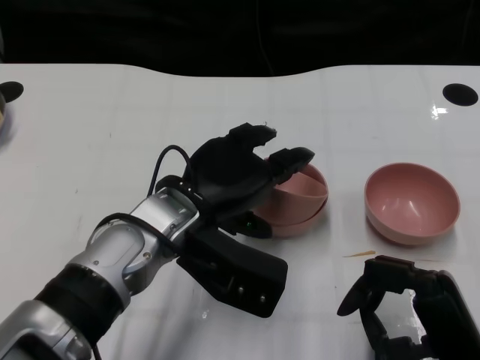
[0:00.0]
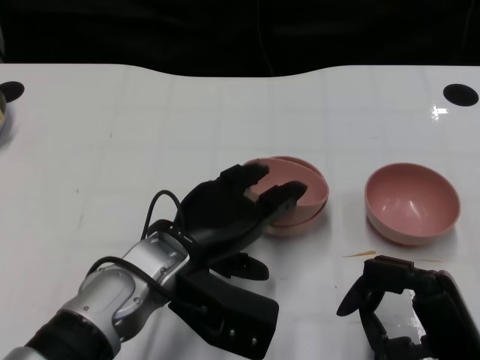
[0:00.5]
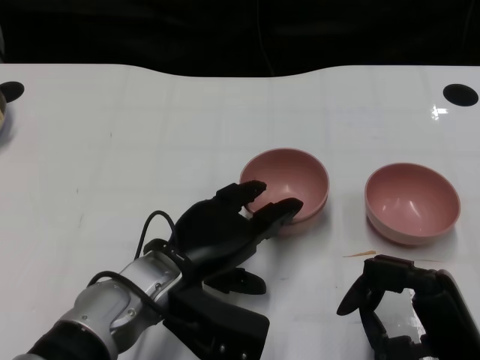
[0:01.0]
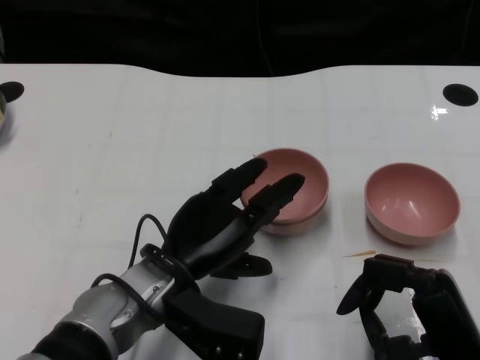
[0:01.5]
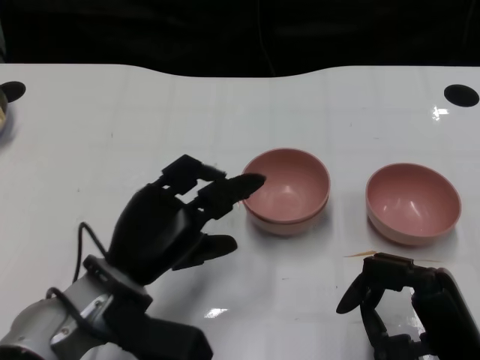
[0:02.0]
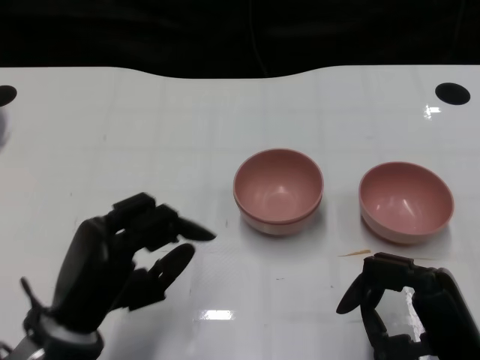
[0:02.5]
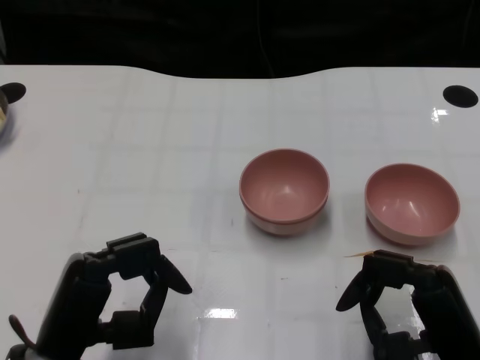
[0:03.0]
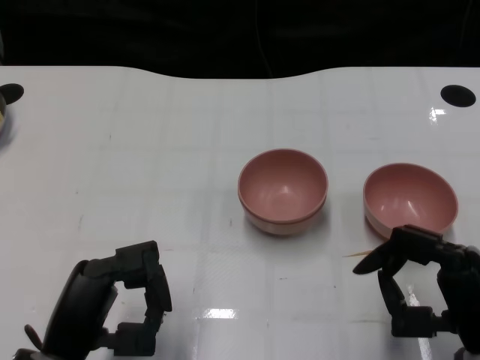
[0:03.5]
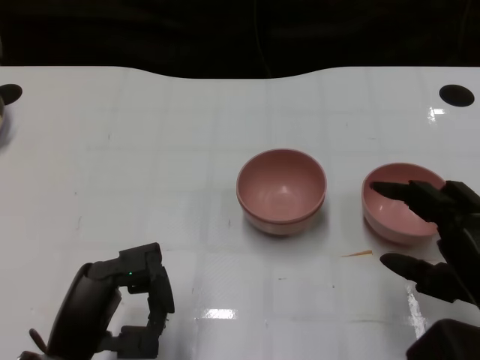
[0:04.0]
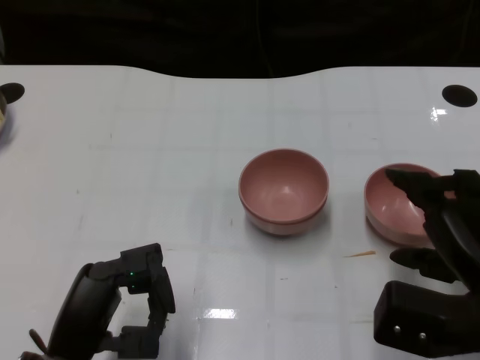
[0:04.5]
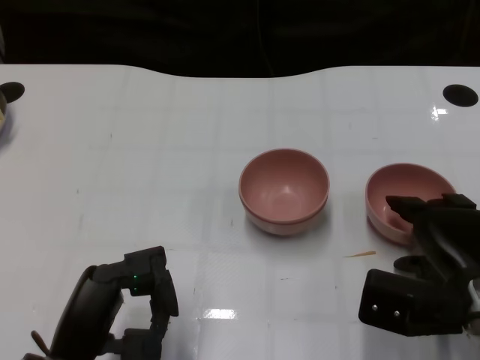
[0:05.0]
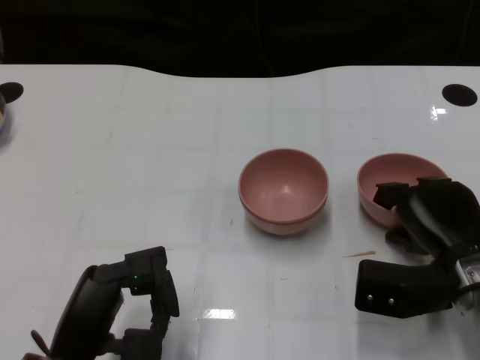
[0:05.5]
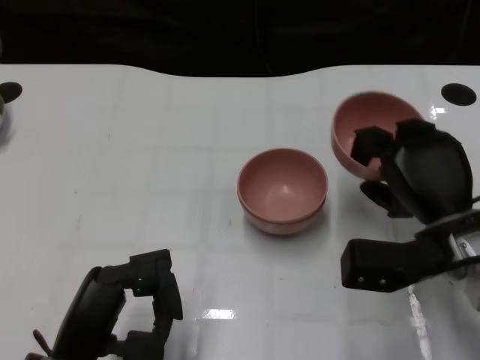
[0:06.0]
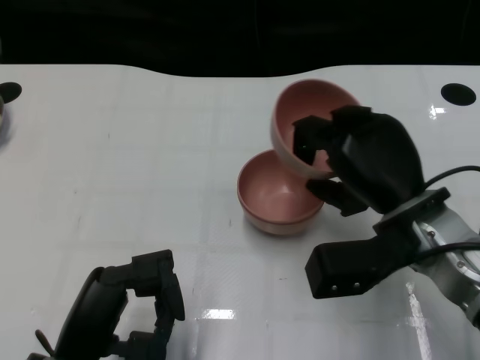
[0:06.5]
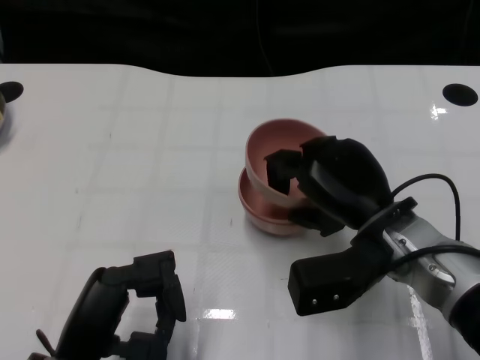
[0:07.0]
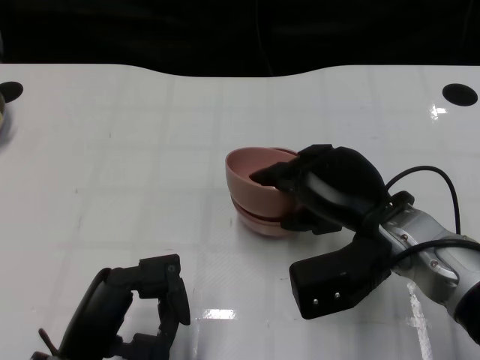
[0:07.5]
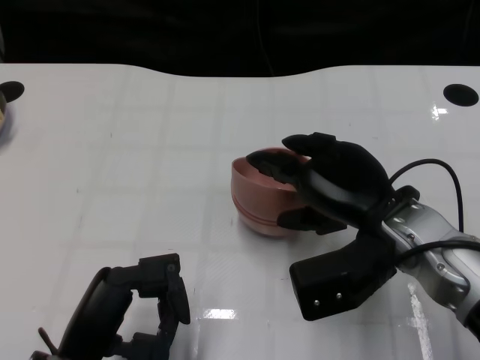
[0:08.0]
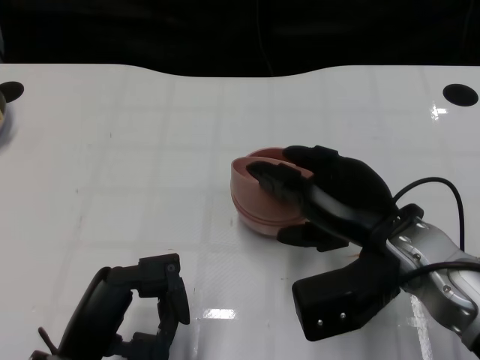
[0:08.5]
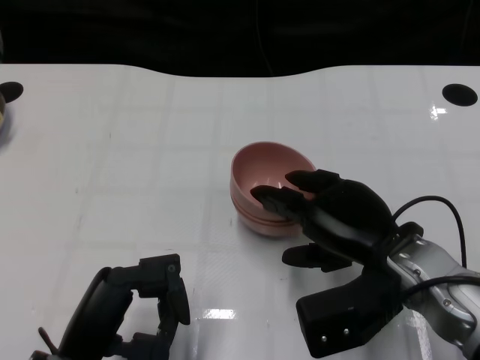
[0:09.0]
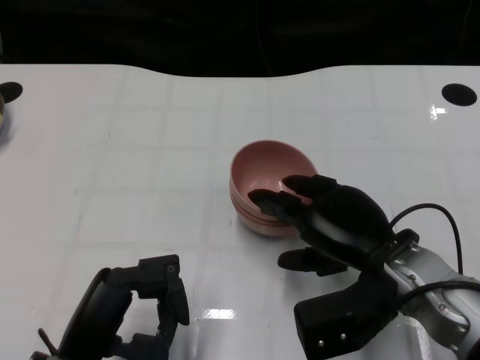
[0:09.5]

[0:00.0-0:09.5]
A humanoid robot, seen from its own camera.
Task of the whole recording: Pick up the bowl on one side of the table and place it on top of the middle bowl, then pick up the bowl on the other side of the table and place it on top of the middle bowls.
Step, 0:02.0 to 0:05.0: Grasp the bowl on the right with the right gripper.
0:00.0 to 0:02.0: The left hand heads to the left and downward, covering some 10 cm.
0:02.0 to 0:04.0: The left hand shifts some 10 cm backward and to the left; the right hand goes approximately 5 cm upward.
0:04.0 to 0:05.5: The right hand travels forward and downward by roughly 10 cm.
0:05.5 to 0:07.5: The right hand heads to the left and upward, covering some 10 cm.
0:07.5 to 0:09.5: The hands make only small movements.

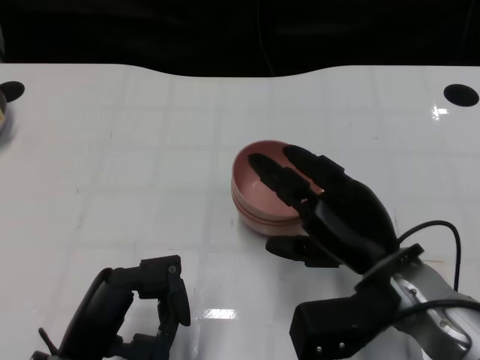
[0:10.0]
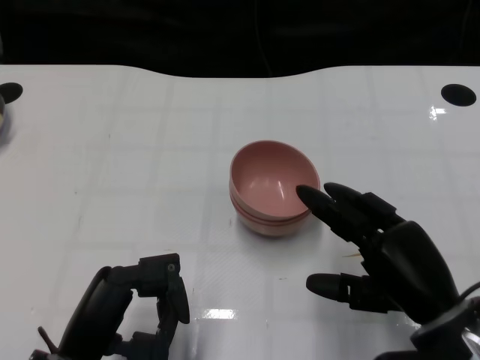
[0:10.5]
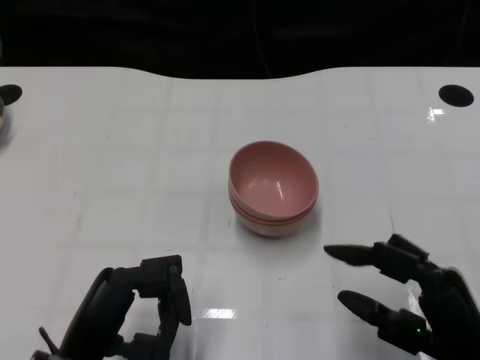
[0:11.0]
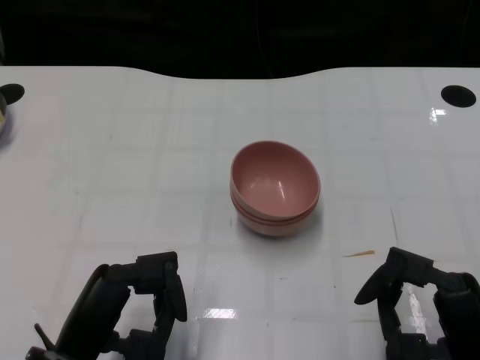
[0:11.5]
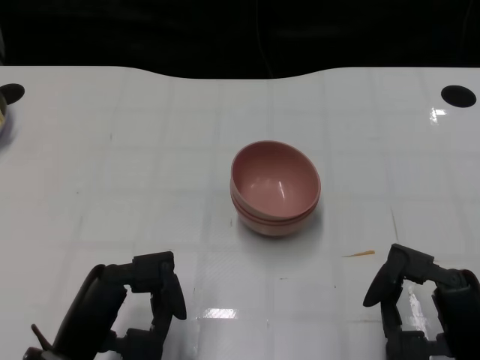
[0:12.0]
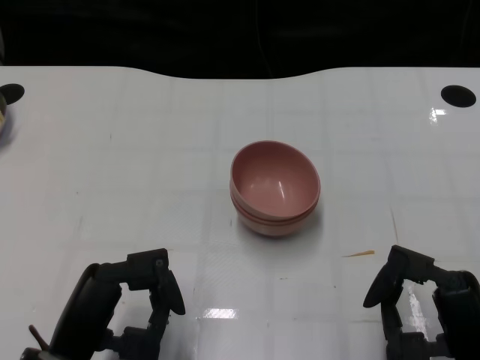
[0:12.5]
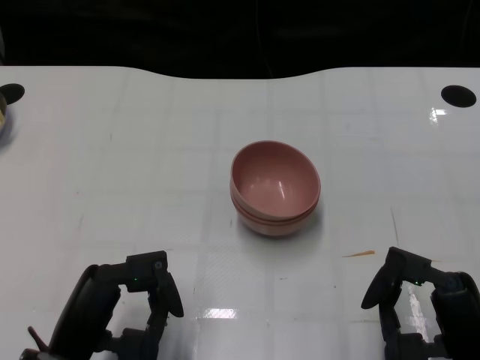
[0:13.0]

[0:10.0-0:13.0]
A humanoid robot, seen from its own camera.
Task of the whole recording: Pick up the bowl on one side of the table and place it on top of the middle bowl, then pick up the bowl on the other side of the table and place it on top of the middle bowls.
0:10.0 to 0:11.5: The right hand heads backward and to the right, covering roughly 10 cm.
0:11.5 to 0:13.0: Neither hand changes place.

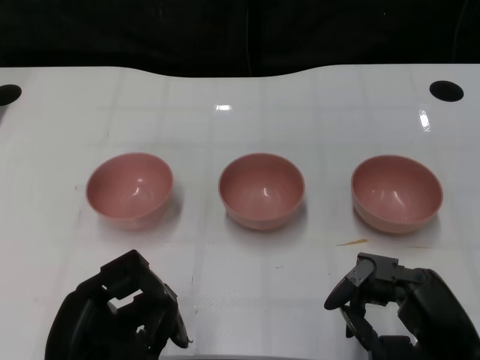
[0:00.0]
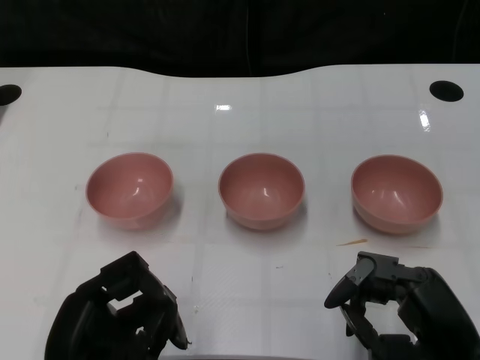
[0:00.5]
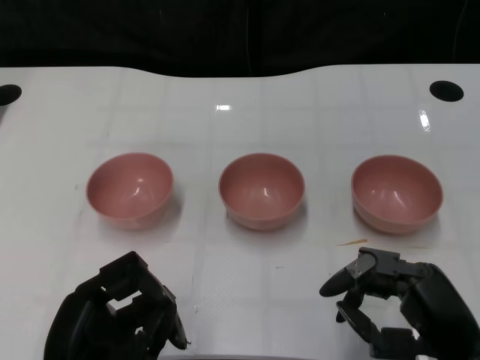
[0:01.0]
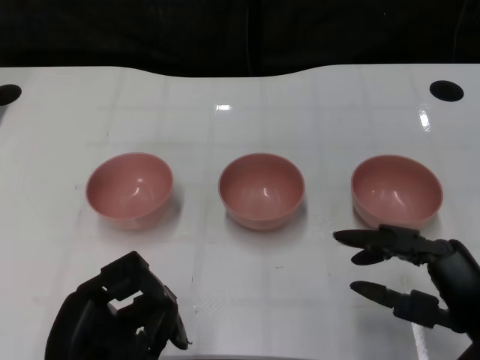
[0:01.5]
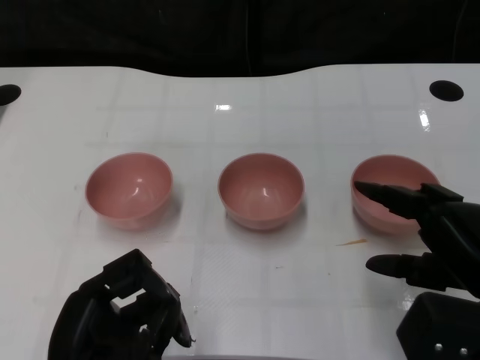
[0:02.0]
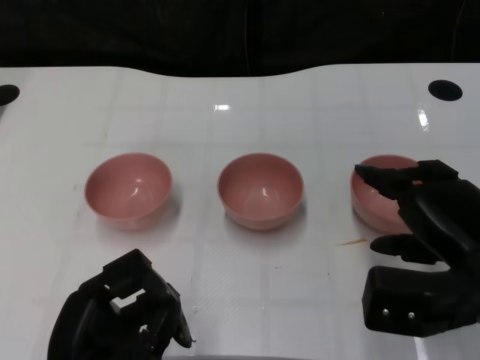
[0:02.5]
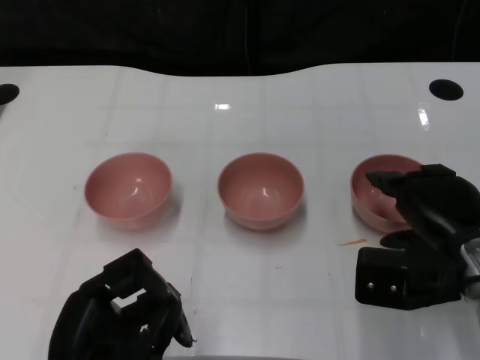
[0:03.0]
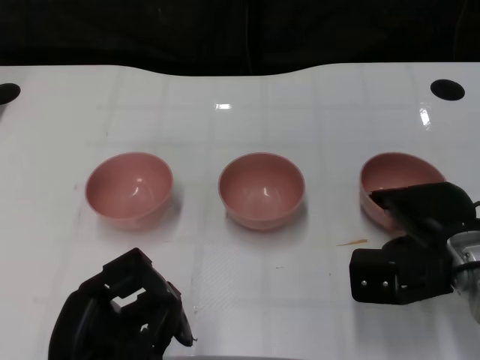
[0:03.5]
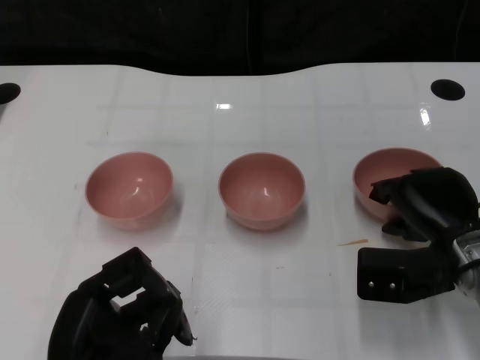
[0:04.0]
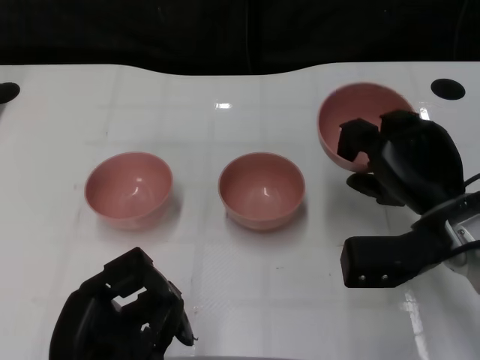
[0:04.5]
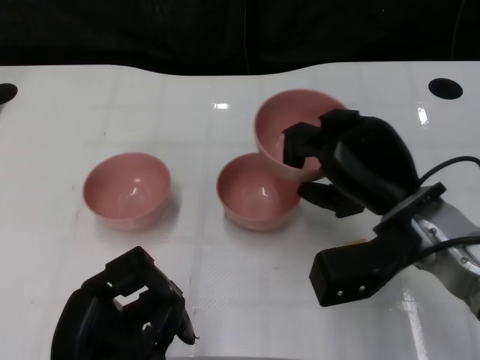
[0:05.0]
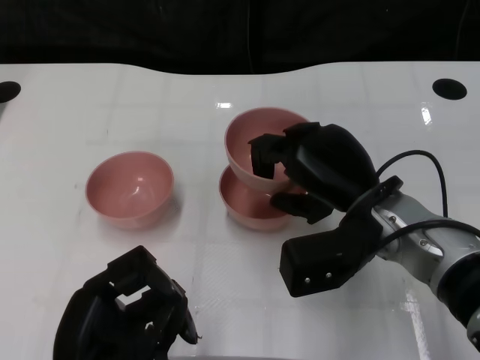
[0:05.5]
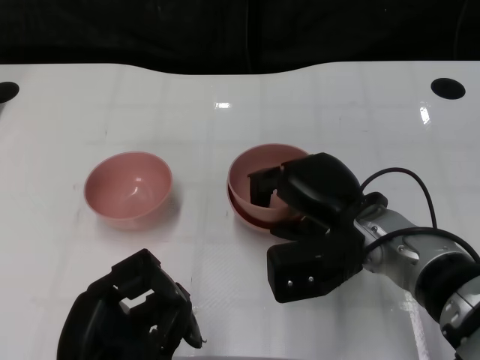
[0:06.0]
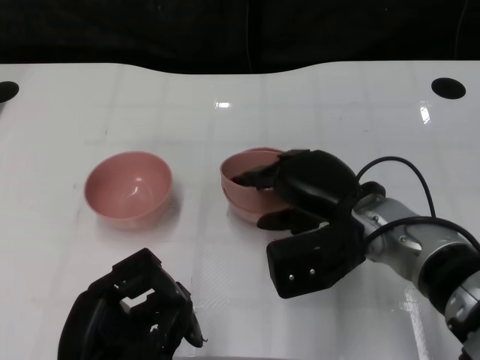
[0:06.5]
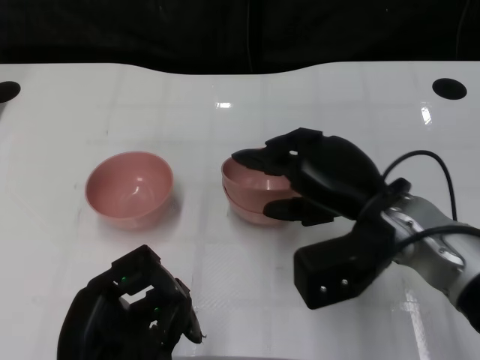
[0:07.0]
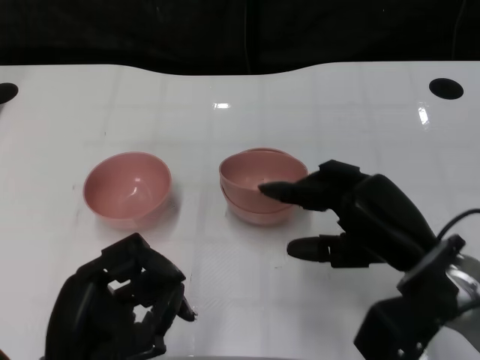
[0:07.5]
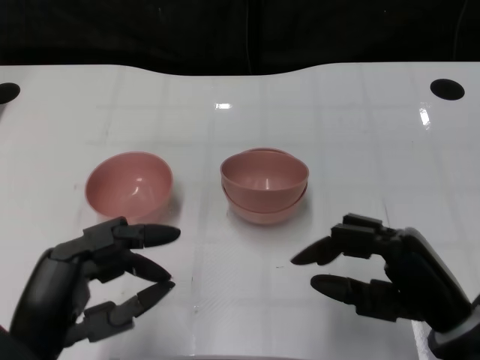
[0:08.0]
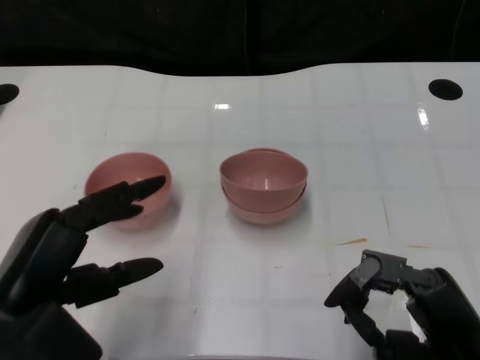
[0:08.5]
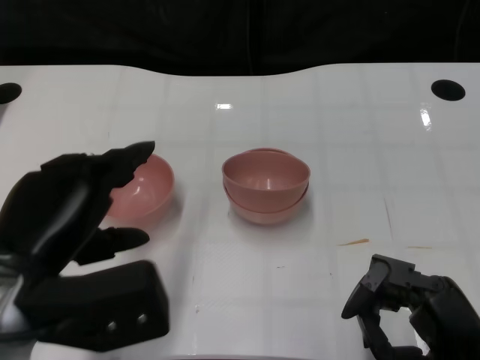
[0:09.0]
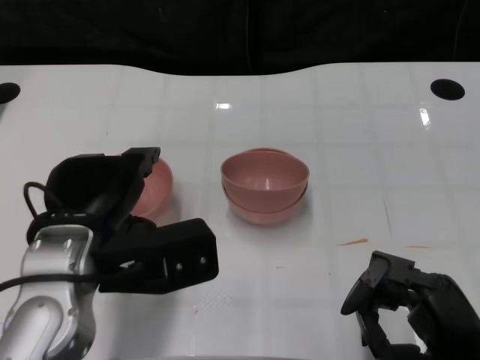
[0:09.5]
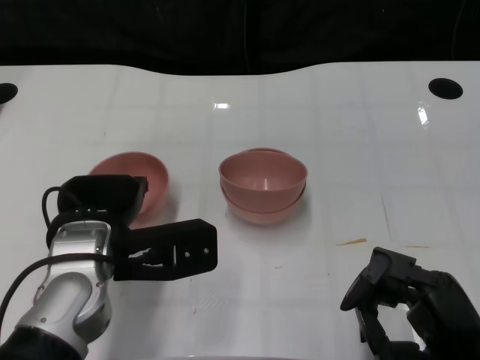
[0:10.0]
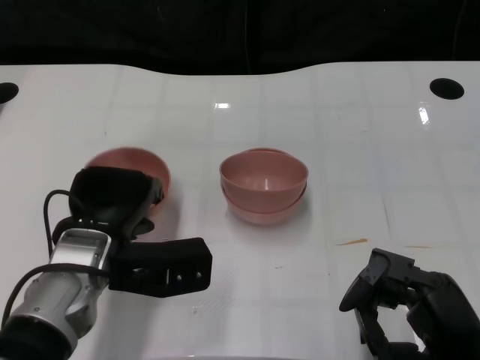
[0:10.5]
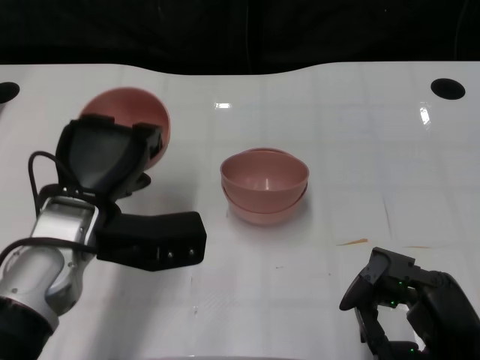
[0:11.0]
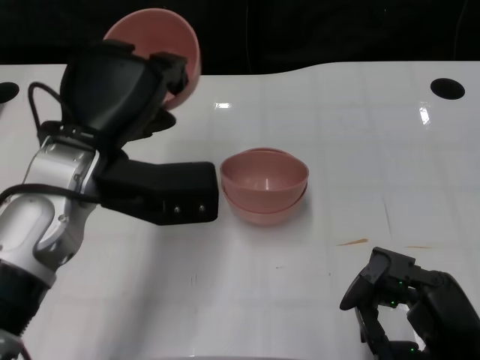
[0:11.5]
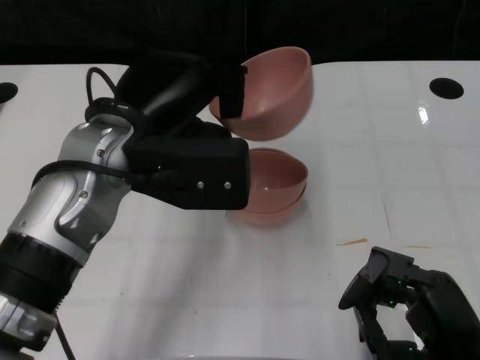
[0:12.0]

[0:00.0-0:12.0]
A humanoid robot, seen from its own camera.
Task of the whole recording: Pick up the bowl on one side of the table and place it on top of the middle bowl, then pick up the bowl on the other side of the table and place it on top of the middle bowls.
Step, 0:01.0 to 0:04.0: Grasp the bowl on the right with the right gripper.
Step, 0:04.5 to 0:07.0: Place the bowl on the right onto the bowl in the middle with right gripper.
Step, 0:07.5 to 0:10.5: Grasp the bowl on the left with the left gripper.
0:02.0 to 0:04.0: The right hand is displaced forward and downward by about 10 cm.
0:04.0 to 0:06.0: The right hand heads to the left, covering about 10 cm.
0:06.0 to 0:08.0: The right hand shifts approximately 15 cm backward and to the right.
0:08.0 to 0:10.0: The left hand travels forward and to the right by roughly 15 cm, while the right hand ends up about 5 cm from where it was.
0:10.0 to 0:12.0: The left hand moves upward, about 10 cm.
